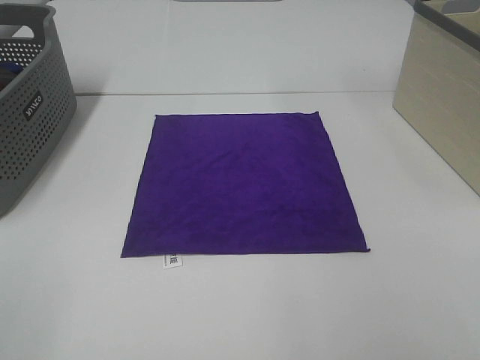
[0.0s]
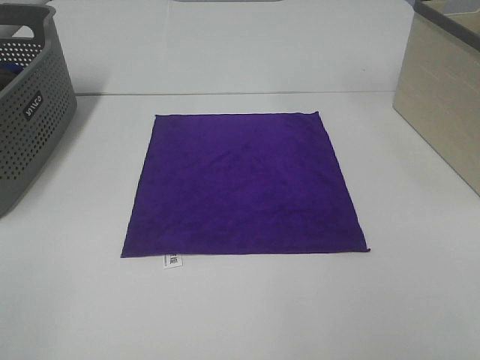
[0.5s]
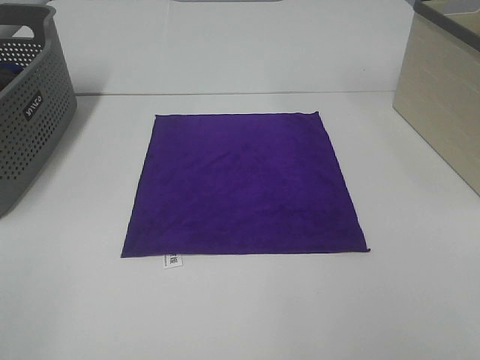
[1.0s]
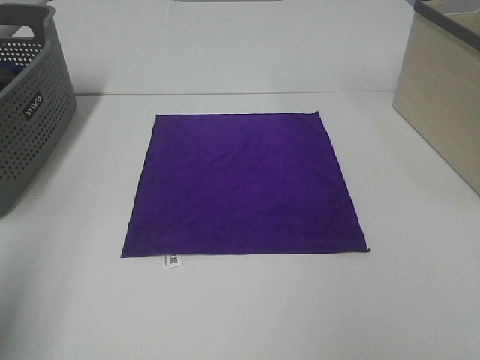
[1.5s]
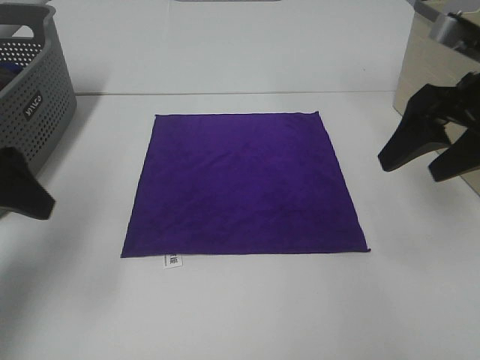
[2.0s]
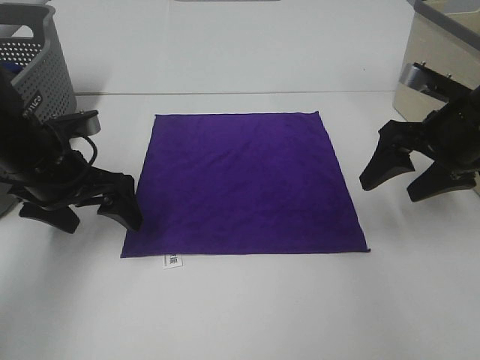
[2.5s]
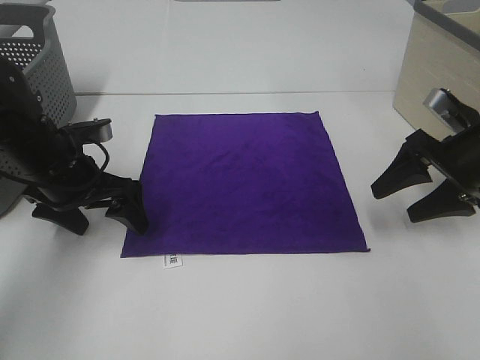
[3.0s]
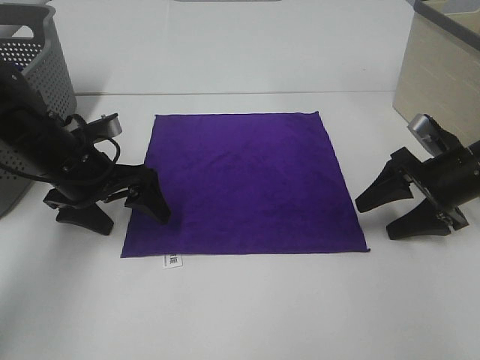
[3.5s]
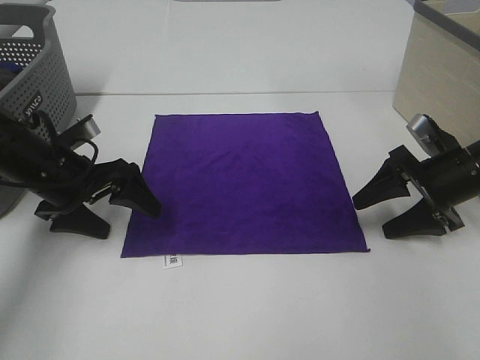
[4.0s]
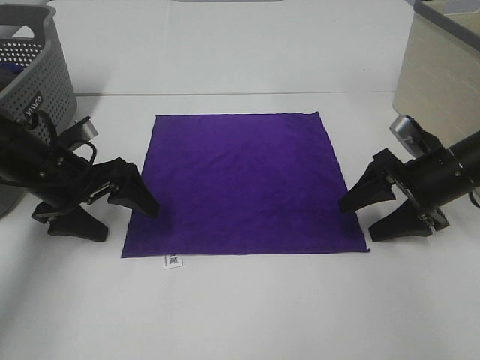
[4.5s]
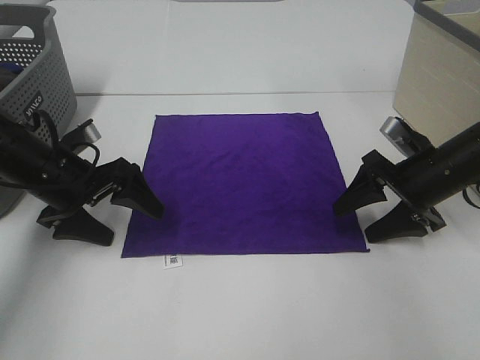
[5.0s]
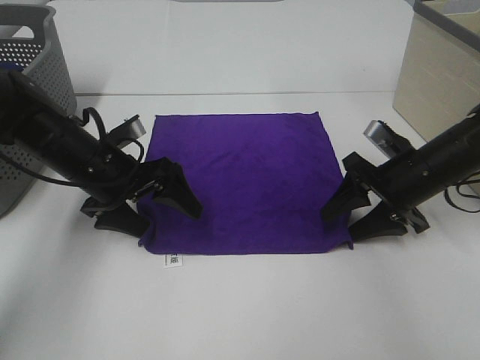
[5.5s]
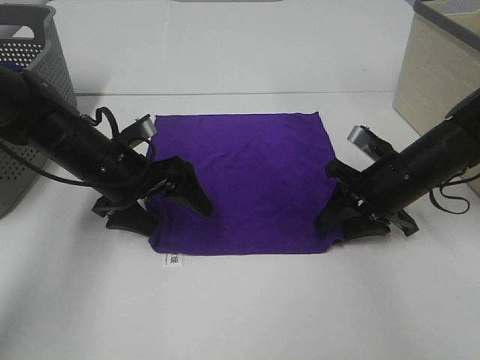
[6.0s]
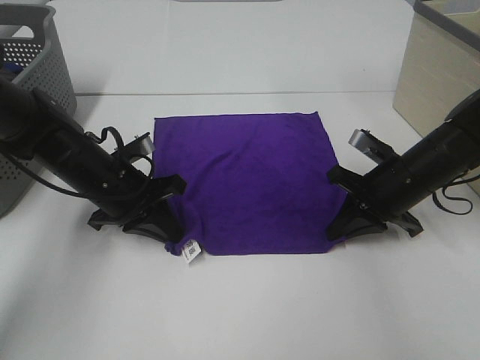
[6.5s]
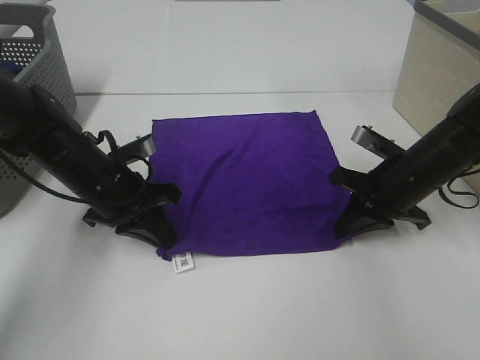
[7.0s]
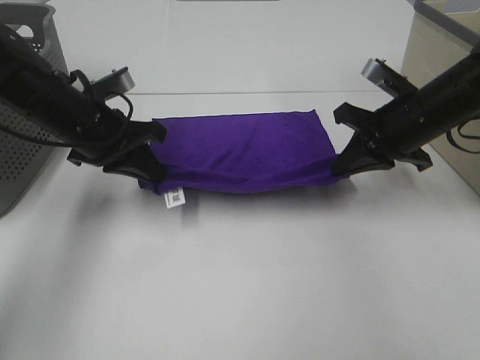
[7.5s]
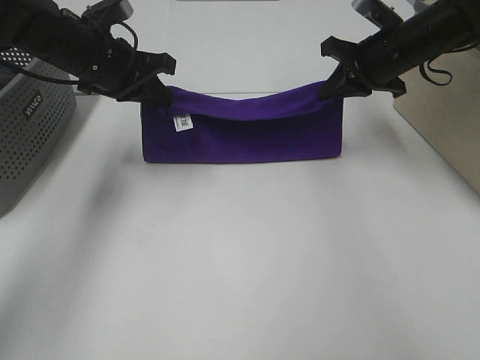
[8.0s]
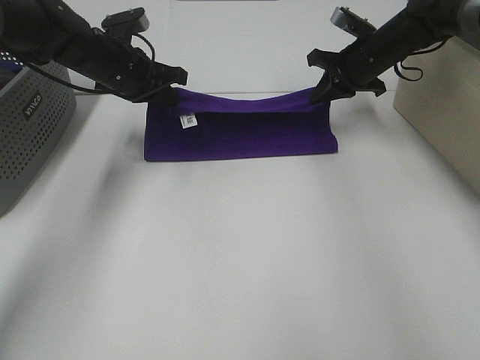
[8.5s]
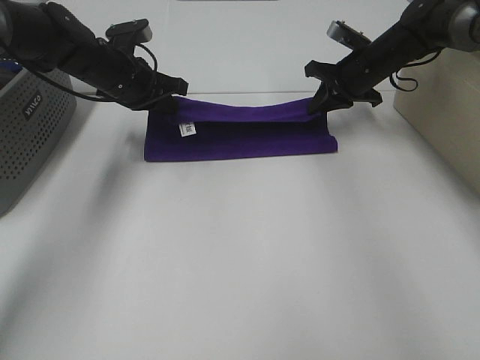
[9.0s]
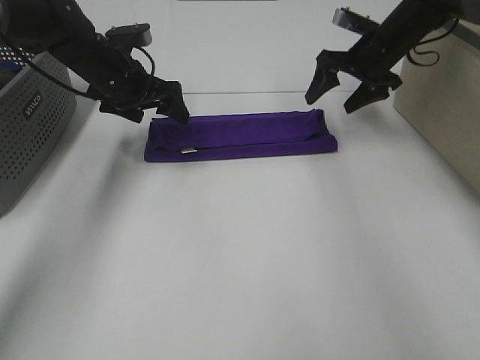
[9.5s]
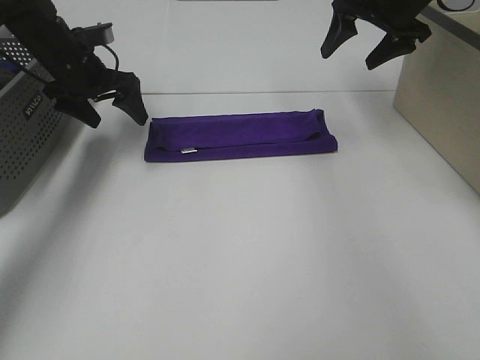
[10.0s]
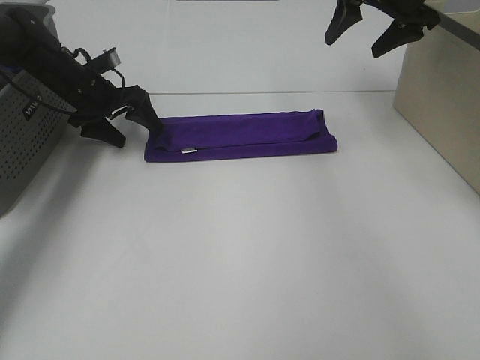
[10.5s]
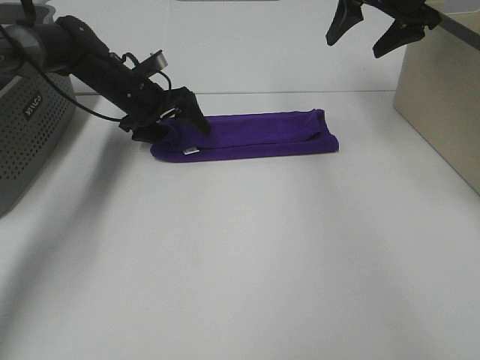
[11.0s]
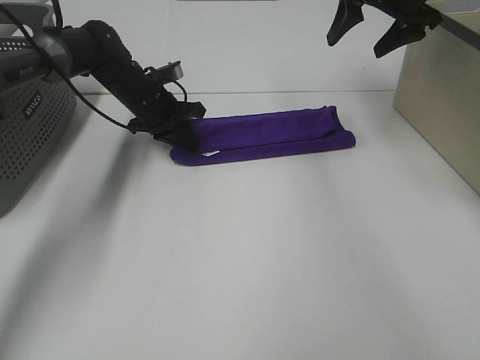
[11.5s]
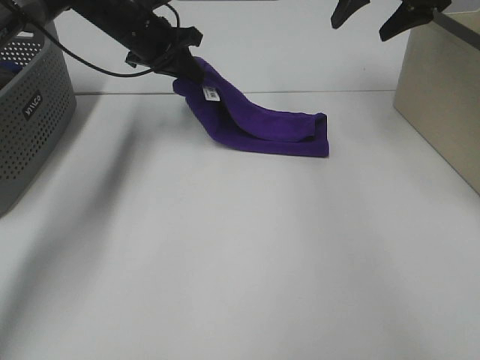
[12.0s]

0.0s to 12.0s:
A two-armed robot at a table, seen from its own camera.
Task of the whole recording: Fold towels.
Step, 0.0s to 6.0s: Left hand: grab the bottom left corner of purple towel.
Step, 0.0s to 6.0s: Right hand: grab the bottom right corner of purple towel.
Step, 6.5s to 9.0s: Left hand: fold the purple towel up.
Step, 6.5s to 9.0s: Right hand: fold the purple towel up.
0.0s to 2.0s: Both grippers travel together forward, about 25 cm.
2.0s to 4.0s: The right gripper shifts approximately 15 cm downward; the left gripper shifts about 15 cm downward and forward.
4.0s to 6.0s: The left gripper moves to the right, approximately 5 cm. The right gripper is displaced to the left by some 5 cm, and closes its fingers.
6.0s to 8.0s: The right gripper travels forward and upward by about 15 cm, and closes its fingers. Meanwhile the left gripper shifts about 15 cm upward and forward, and closes up.
8.0s to 10.0s: The right gripper heads upward and forward, covering some 10 cm, and opens its fingers. Meanwhile the left gripper moves forward and to the left, roughly 10 cm, and opens its fingers.
10.0s to 12.0s: The left gripper is displaced to the right by approximately 10 cm, and closes.

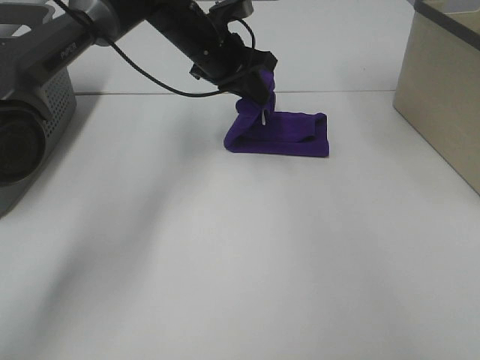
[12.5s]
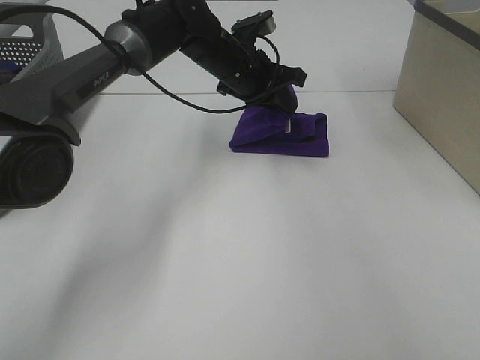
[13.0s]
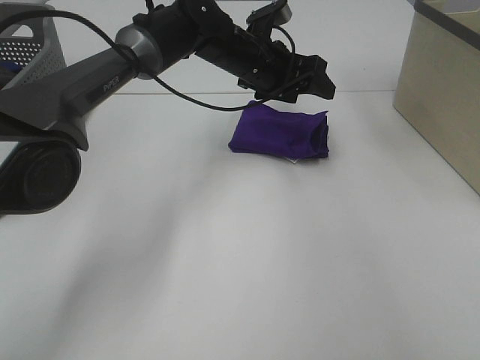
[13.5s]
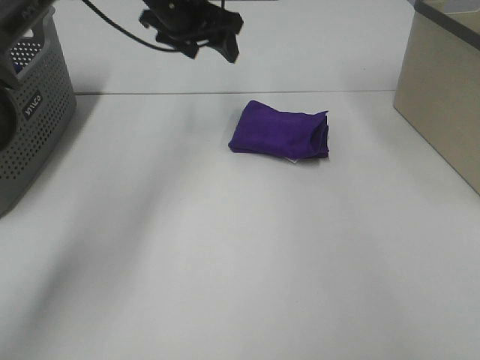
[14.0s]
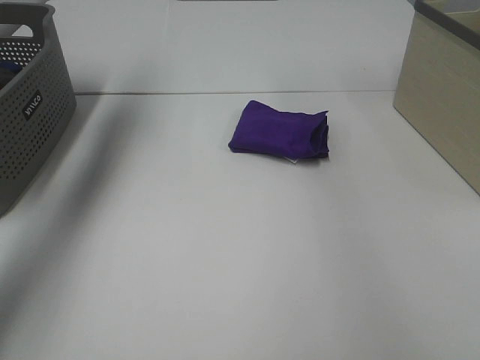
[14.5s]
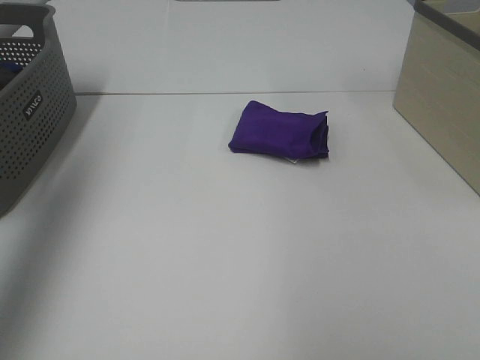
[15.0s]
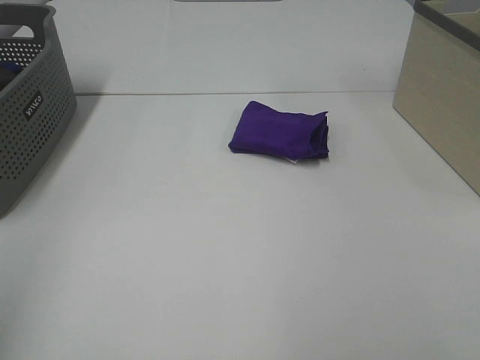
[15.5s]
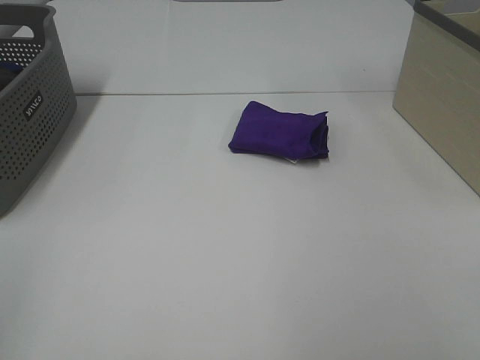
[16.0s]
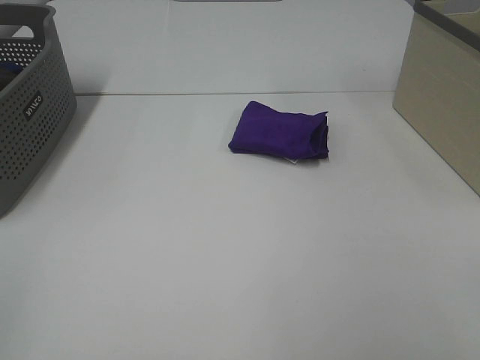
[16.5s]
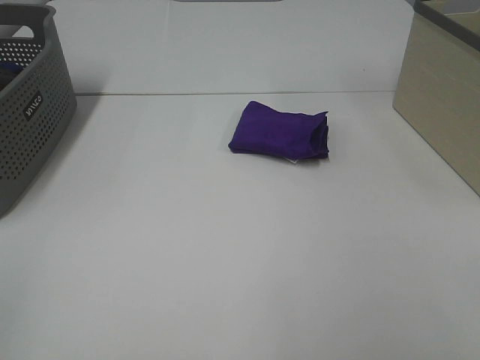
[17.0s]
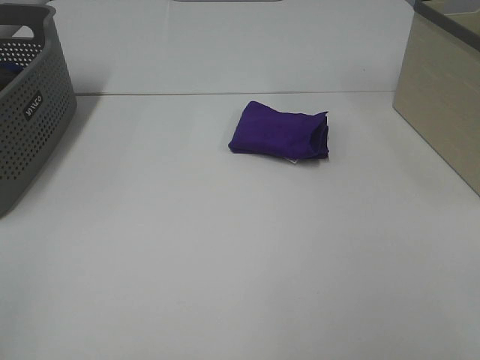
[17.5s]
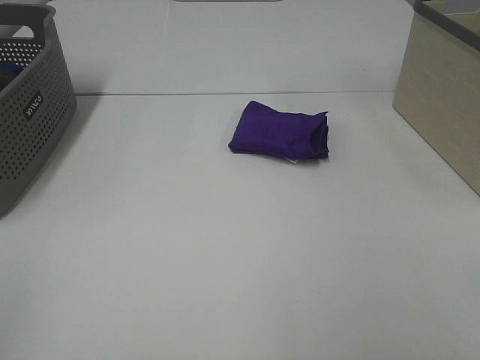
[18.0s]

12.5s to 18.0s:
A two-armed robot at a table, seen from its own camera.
Task of the whole recording: Fold towels.
12.5s to 14.5s: The right gripper is displaced to the right and backward by approximately 15 cm. Meanwhile the left gripper shifts some 30 cm to the left and upward, and opens up.
14.5s to 16.0s: The left gripper shifts some 50 cm backward.
